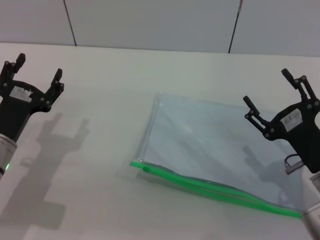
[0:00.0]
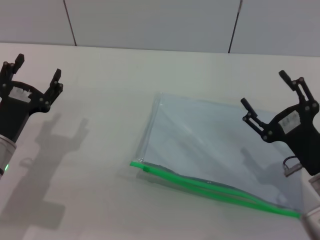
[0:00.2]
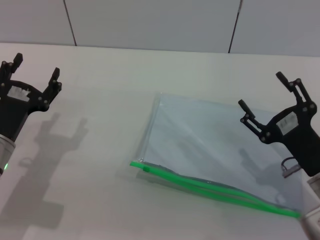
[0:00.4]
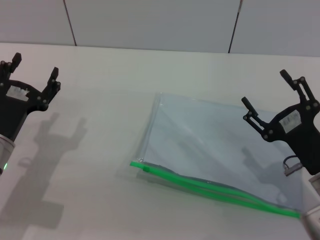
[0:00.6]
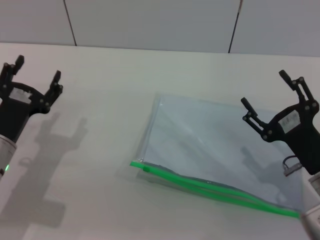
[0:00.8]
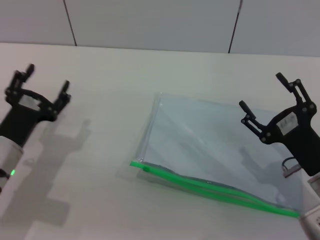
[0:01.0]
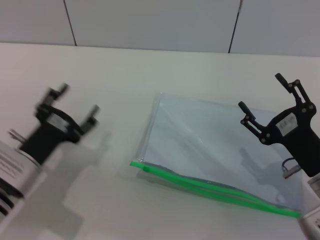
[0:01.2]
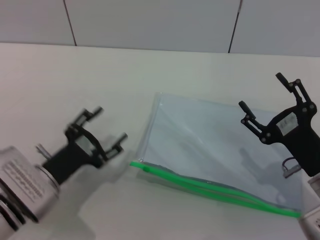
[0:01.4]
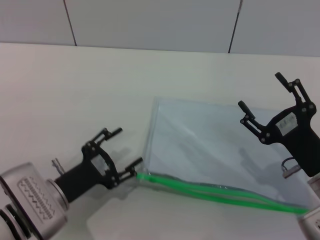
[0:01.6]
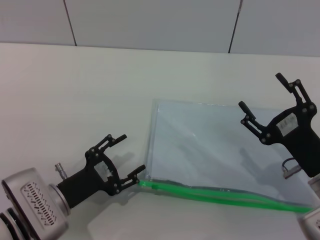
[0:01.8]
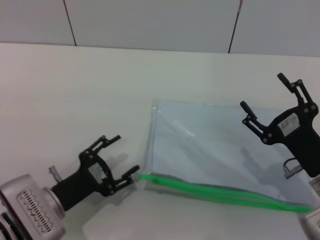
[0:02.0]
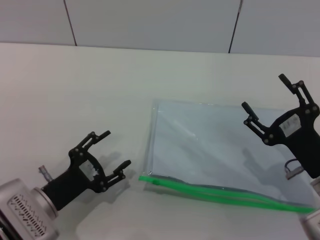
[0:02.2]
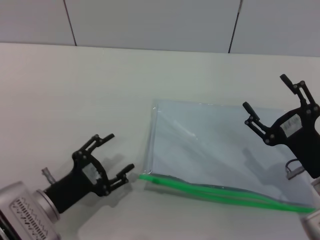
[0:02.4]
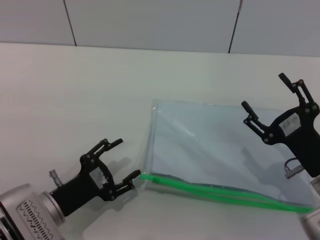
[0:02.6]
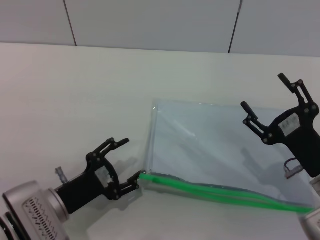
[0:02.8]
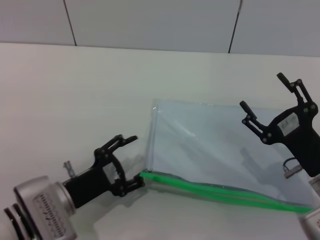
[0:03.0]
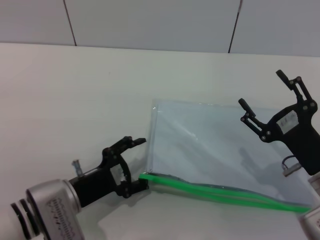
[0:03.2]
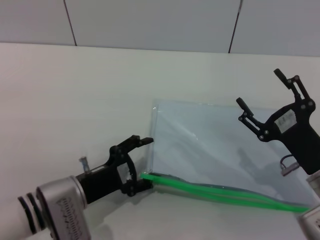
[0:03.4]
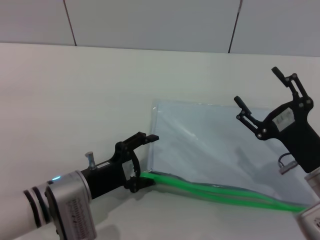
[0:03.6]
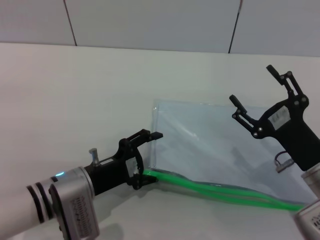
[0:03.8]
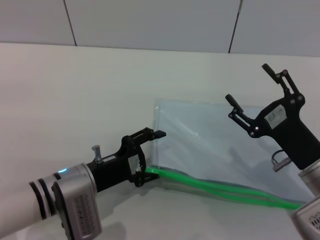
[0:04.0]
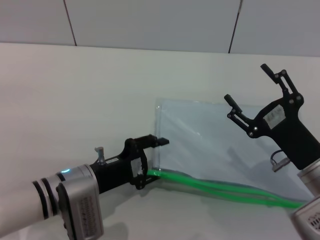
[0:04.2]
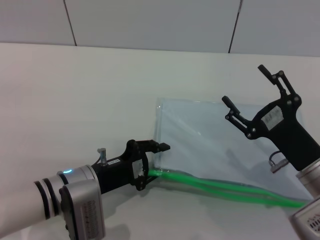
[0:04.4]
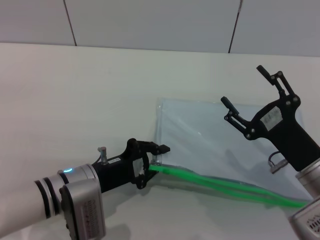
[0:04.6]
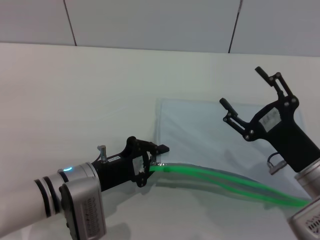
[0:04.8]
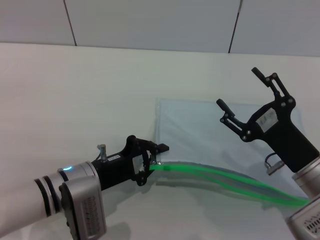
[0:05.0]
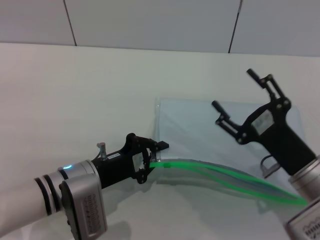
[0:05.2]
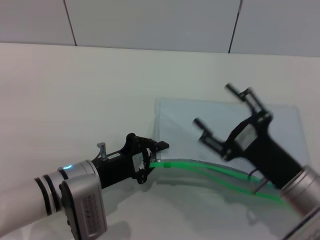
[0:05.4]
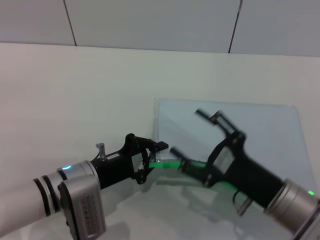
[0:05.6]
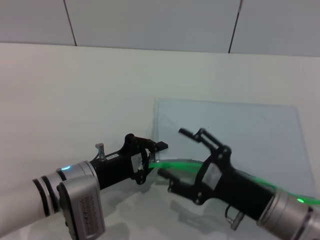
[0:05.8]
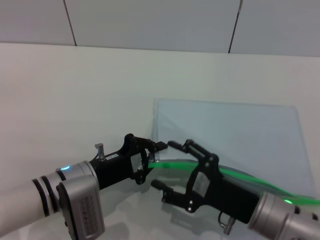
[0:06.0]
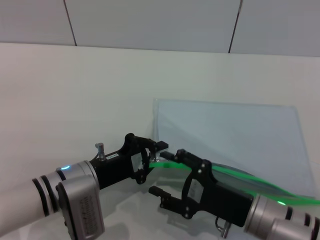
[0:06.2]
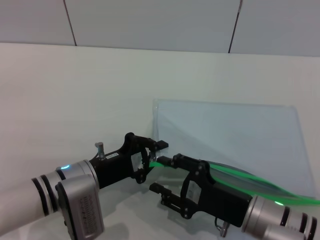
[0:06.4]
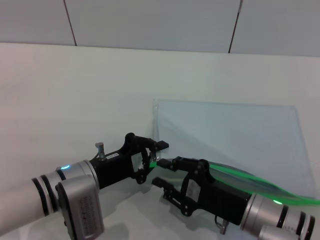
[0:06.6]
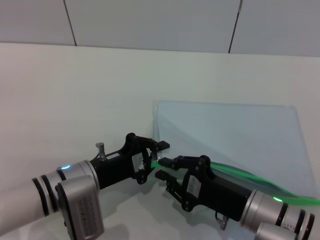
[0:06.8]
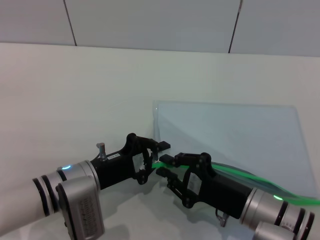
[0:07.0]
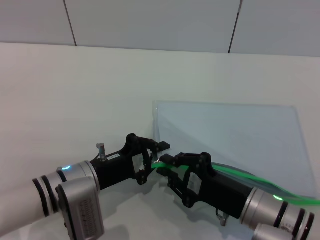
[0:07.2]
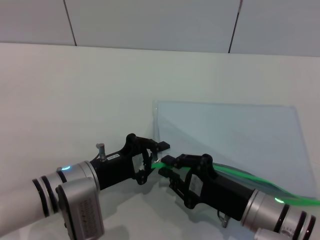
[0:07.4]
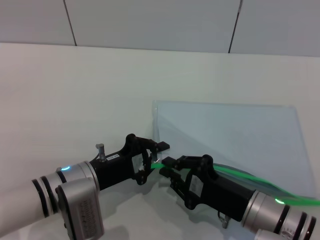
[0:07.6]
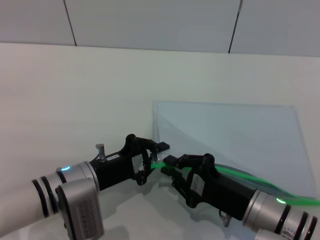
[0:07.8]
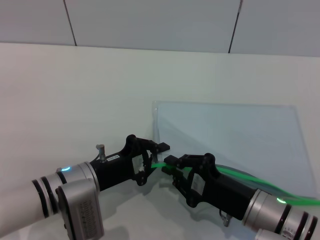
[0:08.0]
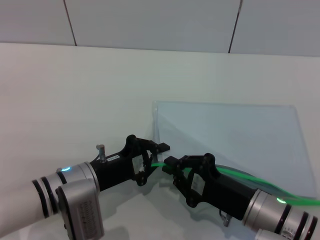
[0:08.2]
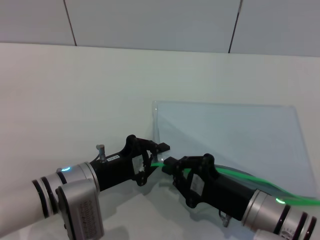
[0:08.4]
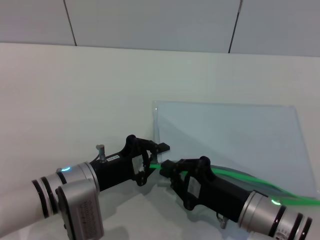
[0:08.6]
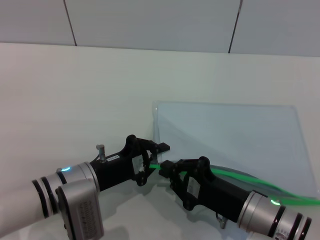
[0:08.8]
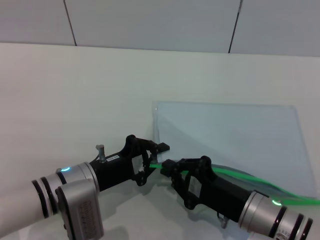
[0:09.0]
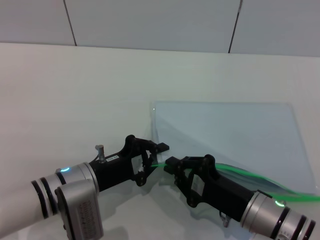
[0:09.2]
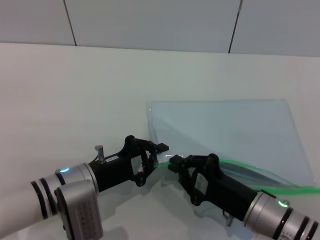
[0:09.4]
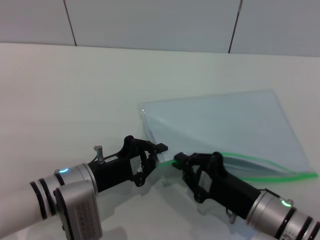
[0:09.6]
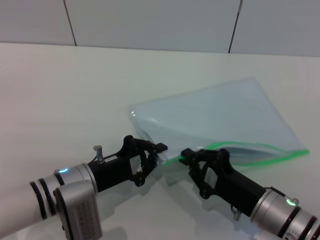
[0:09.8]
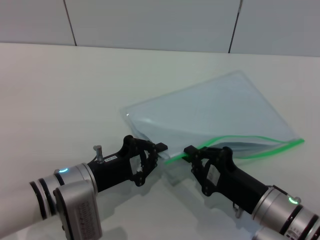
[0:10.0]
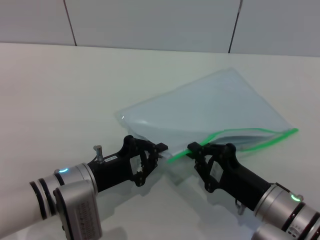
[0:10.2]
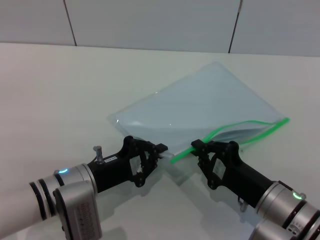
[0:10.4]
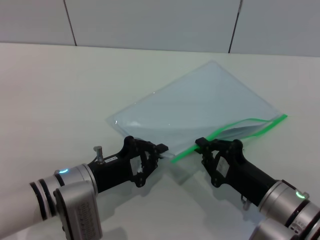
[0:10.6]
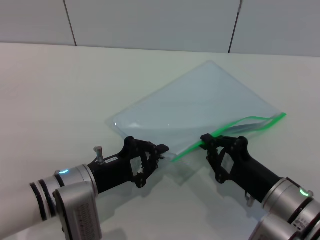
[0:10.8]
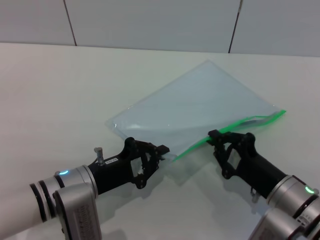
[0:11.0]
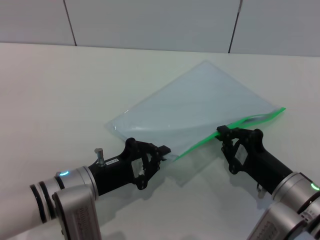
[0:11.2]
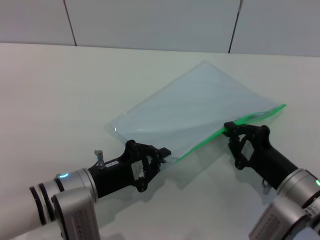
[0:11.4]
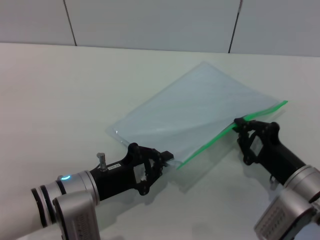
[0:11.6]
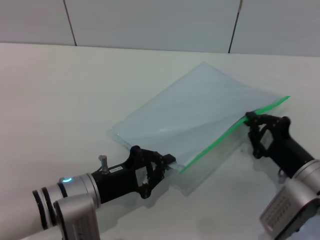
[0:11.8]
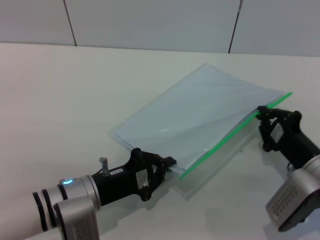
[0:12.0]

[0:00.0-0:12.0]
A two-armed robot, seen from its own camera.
Step, 0:00.0 to 0:05.6: Pick up the transparent plastic bag with the left gripper.
0:00.0 to 0:01.6: The left gripper is displaced to the right by approximately 5 cm.
0:01.6 to 0:03.0: The grippers move only a little.
0:04.4 to 0:06.0: The right gripper is displaced to the left by roughly 5 cm. Meanwhile the left gripper closes its fingers.
0:06.0 to 0:07.6: The right gripper closes up.
0:07.6 to 0:09.0: Both grippers stay about where they are.
0:09.0 to 0:10.4: There are only small adjustments of the grippers.
0:10.4 to 0:12.0: The right gripper goes roughly 5 cm to the right.

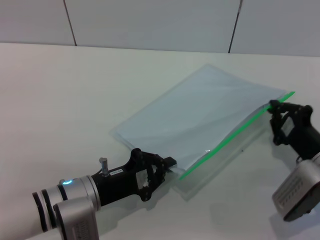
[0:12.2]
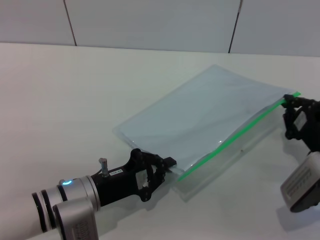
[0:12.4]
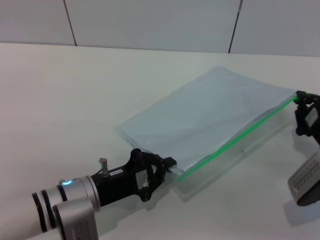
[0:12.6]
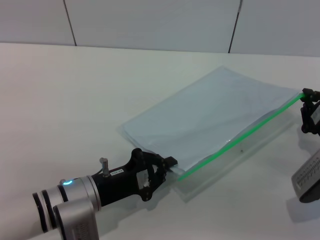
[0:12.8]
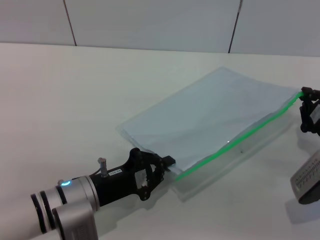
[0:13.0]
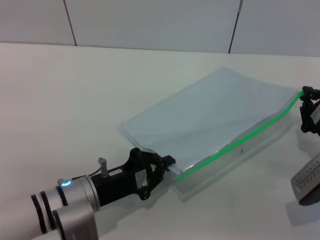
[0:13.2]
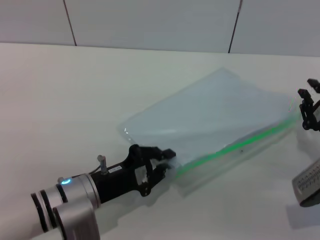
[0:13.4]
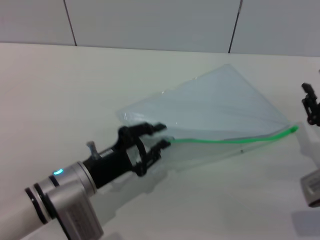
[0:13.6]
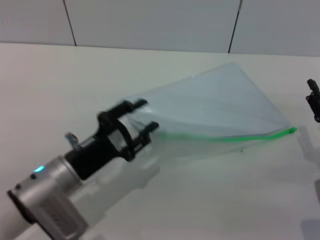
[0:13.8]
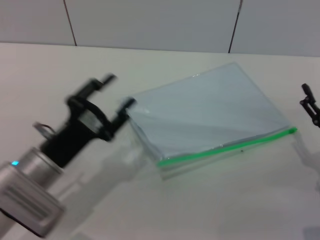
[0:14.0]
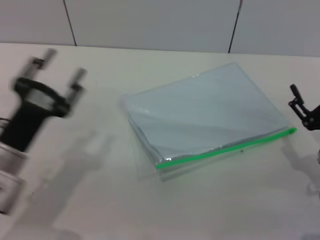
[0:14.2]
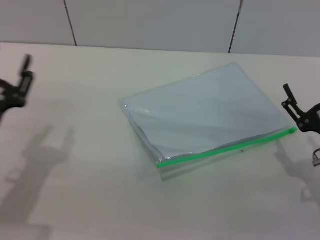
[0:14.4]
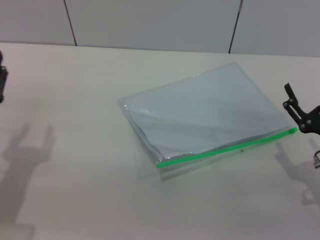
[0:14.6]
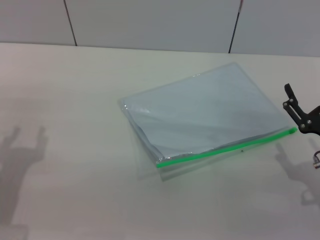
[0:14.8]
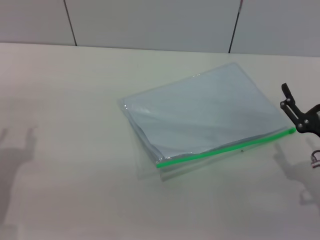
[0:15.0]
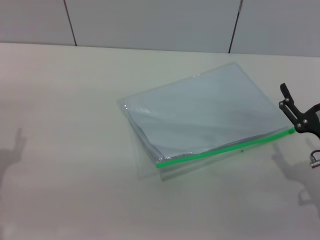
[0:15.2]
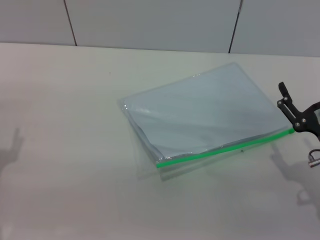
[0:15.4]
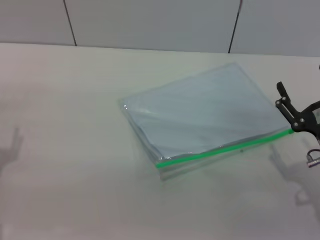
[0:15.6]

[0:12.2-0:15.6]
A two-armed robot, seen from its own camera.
Step, 0:13.6 to 0:14.2: Place the transparent plastic bag.
0:12.2 to 0:13.8: The left gripper opens. The right gripper opens its fingers.
0:13.8 to 0:15.6: The right gripper opens up, while the left gripper moves to the left, about 15 cm, and opens up.
